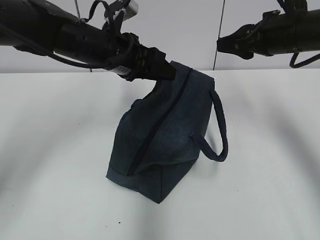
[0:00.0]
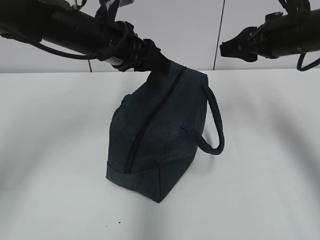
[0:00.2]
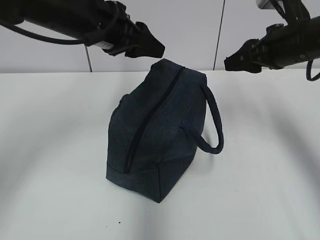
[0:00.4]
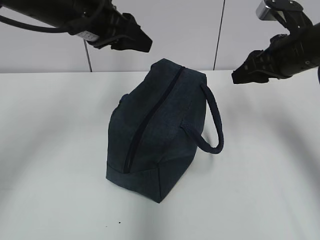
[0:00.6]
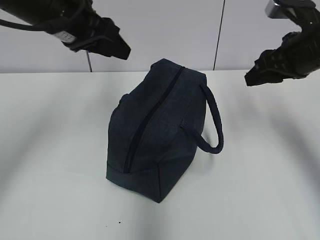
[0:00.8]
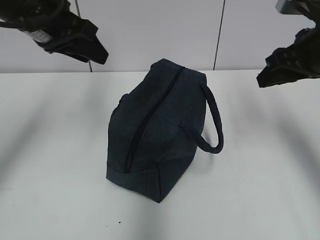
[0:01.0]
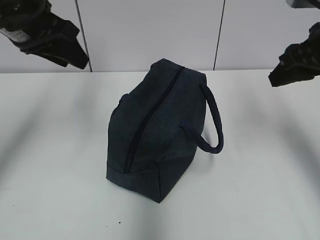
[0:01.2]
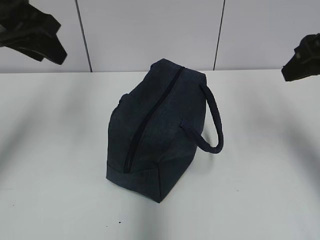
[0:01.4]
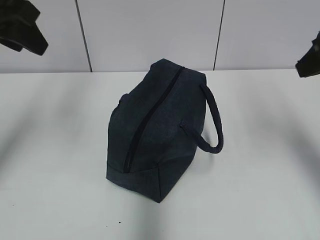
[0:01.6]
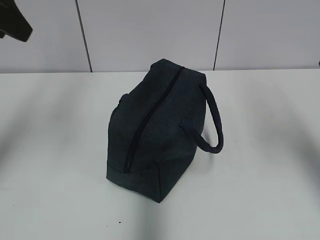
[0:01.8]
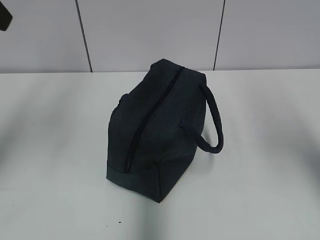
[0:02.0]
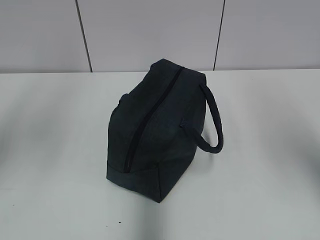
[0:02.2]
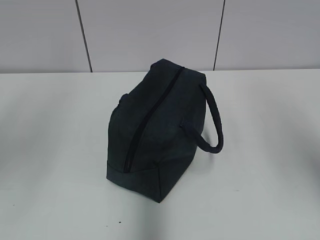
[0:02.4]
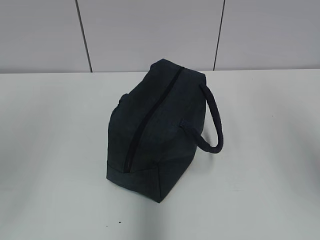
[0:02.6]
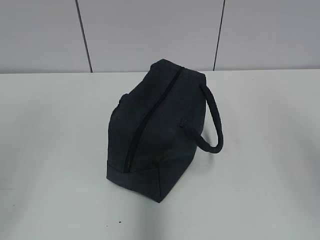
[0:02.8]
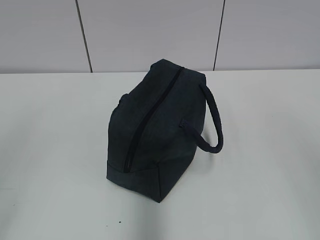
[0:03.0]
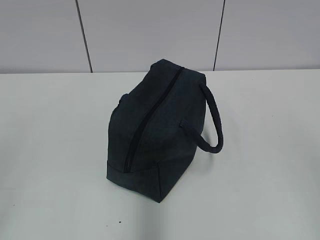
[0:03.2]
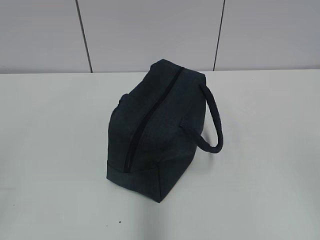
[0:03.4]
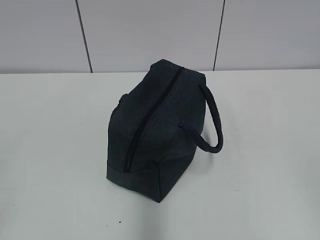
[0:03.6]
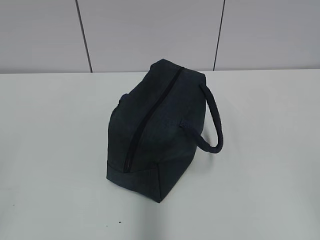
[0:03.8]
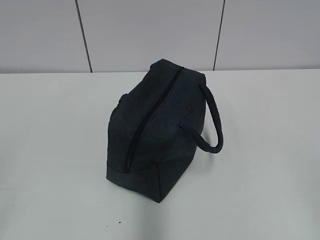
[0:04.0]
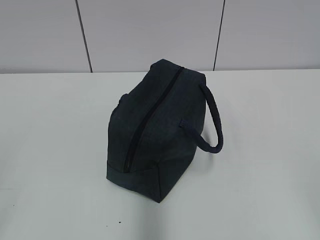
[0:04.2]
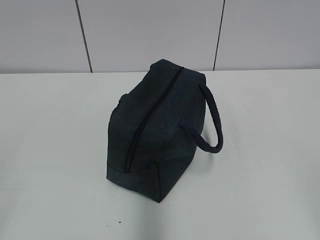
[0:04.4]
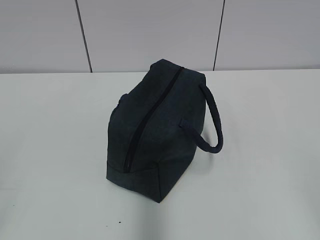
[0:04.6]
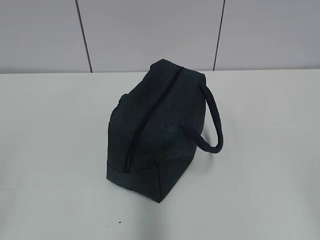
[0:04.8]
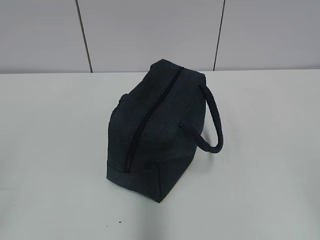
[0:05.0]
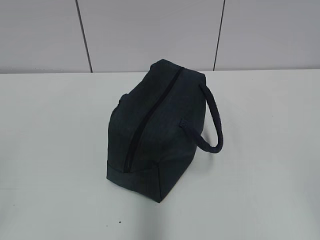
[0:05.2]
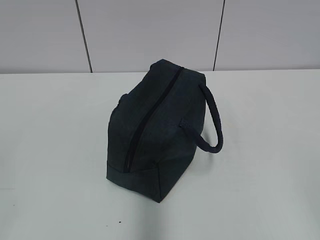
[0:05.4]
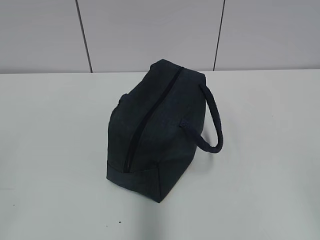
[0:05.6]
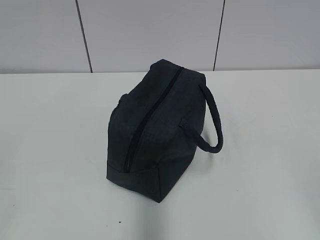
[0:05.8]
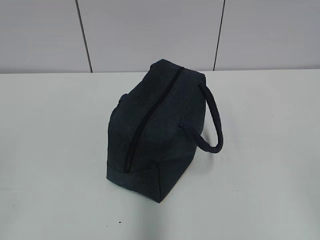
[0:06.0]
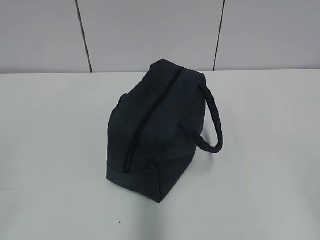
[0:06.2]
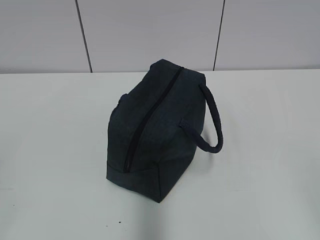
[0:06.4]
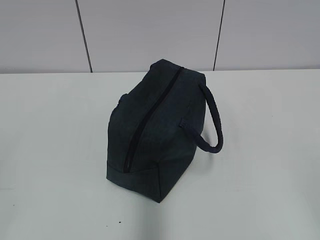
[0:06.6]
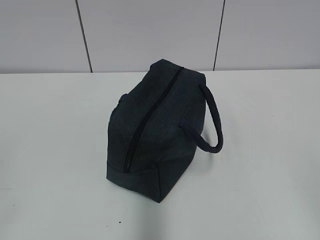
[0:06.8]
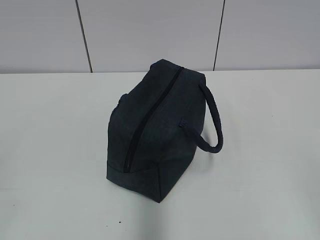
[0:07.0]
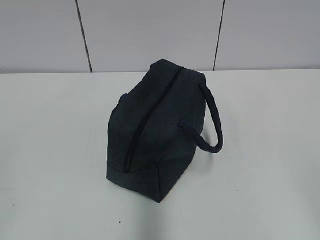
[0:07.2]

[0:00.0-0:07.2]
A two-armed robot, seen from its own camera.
0:00.0 to 0:01.4: The right gripper shifts some 10 cm backward and upward. Meanwhile the left gripper is displaced to the left, upward and backward by some 20 cm.
0:01.4 to 0:02.8: The left gripper moves backward, roughly 25 cm. Meanwhile the right gripper moves backward and upward, about 25 cm.
0:05.8 to 0:07.2: Both grippers stay put.
